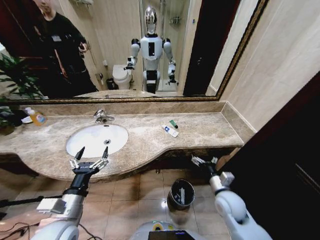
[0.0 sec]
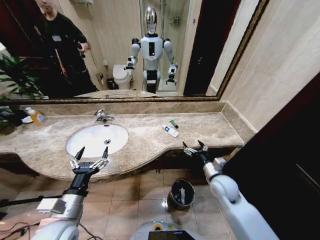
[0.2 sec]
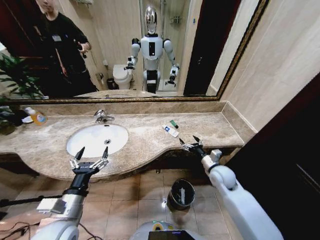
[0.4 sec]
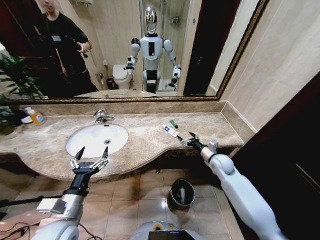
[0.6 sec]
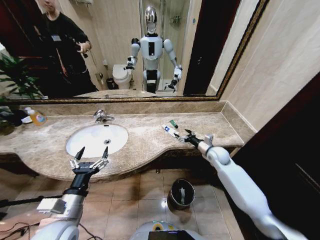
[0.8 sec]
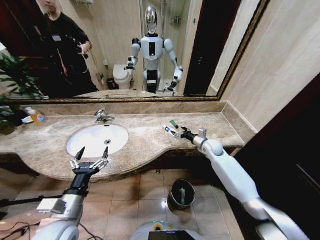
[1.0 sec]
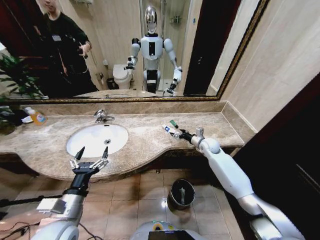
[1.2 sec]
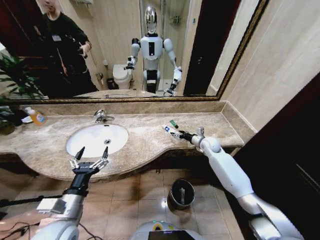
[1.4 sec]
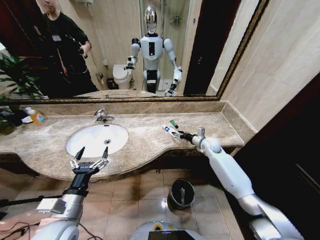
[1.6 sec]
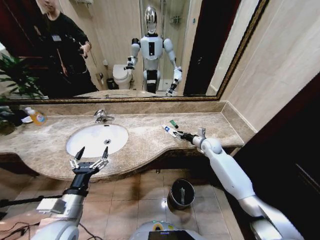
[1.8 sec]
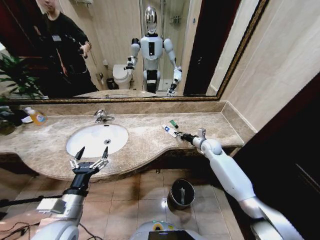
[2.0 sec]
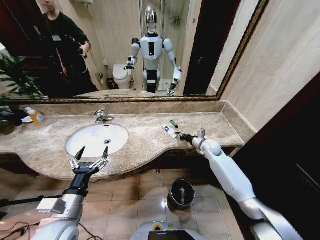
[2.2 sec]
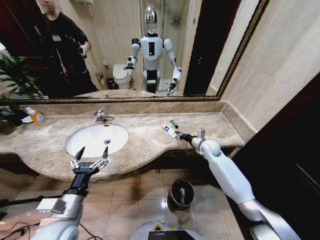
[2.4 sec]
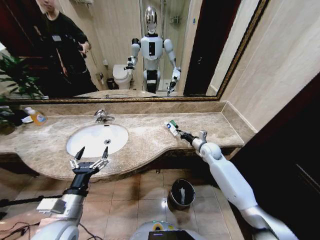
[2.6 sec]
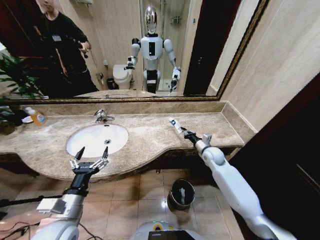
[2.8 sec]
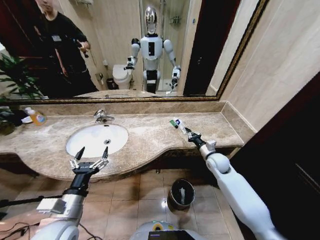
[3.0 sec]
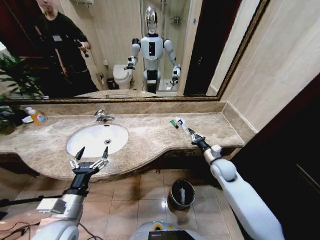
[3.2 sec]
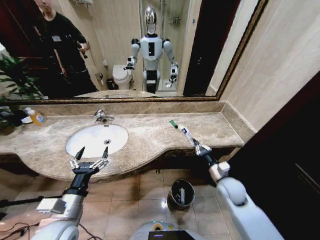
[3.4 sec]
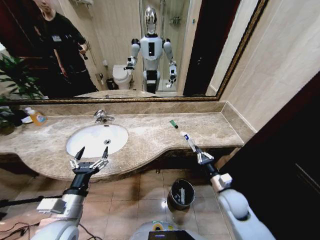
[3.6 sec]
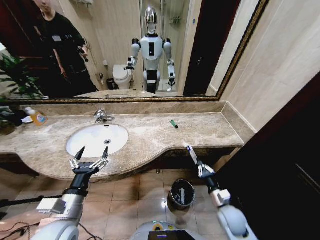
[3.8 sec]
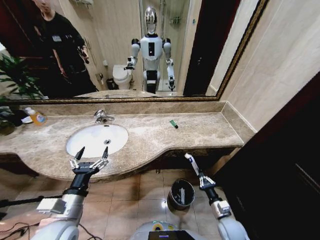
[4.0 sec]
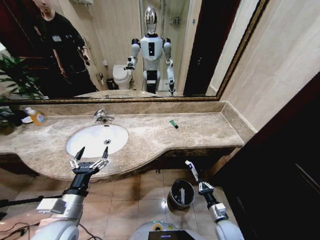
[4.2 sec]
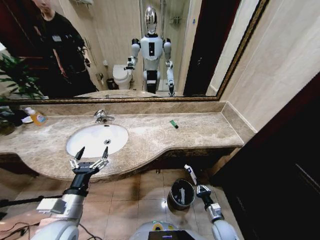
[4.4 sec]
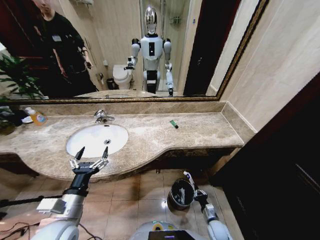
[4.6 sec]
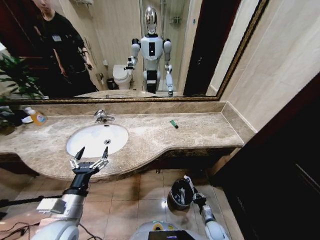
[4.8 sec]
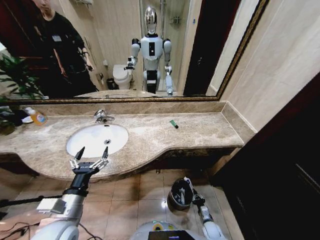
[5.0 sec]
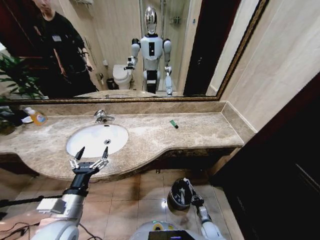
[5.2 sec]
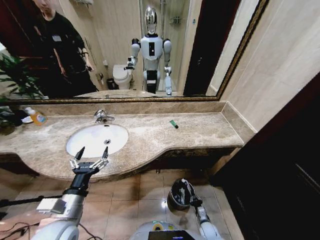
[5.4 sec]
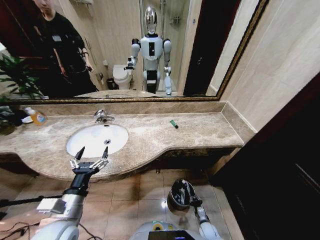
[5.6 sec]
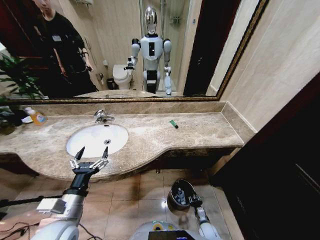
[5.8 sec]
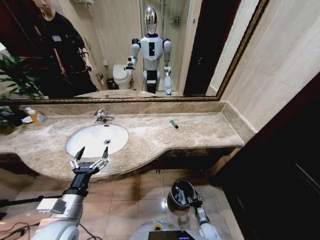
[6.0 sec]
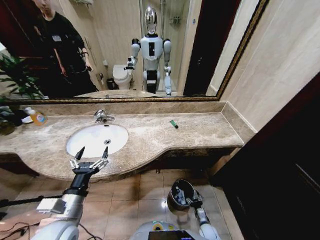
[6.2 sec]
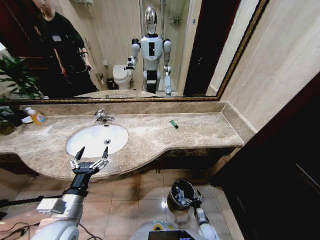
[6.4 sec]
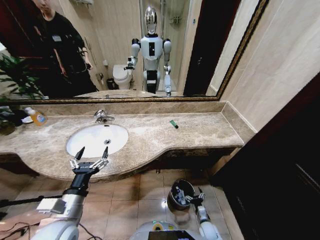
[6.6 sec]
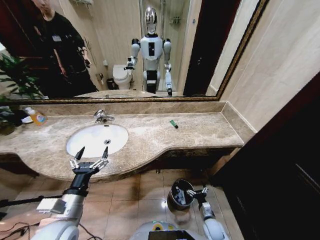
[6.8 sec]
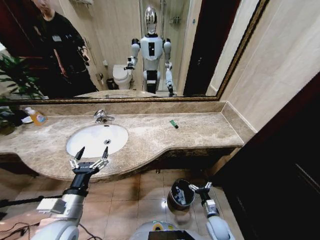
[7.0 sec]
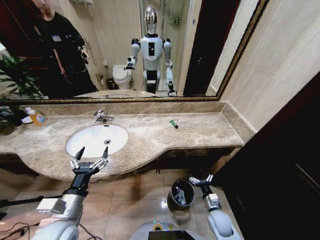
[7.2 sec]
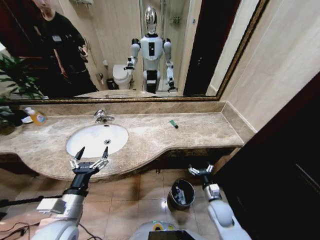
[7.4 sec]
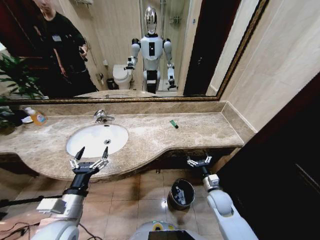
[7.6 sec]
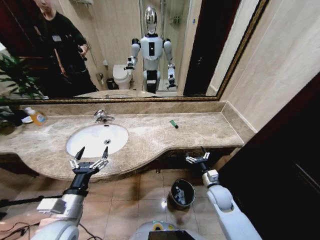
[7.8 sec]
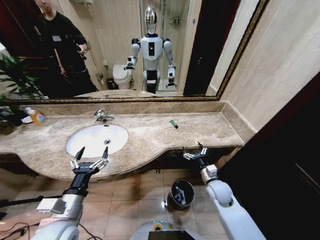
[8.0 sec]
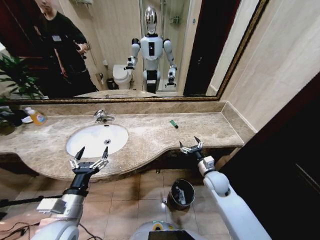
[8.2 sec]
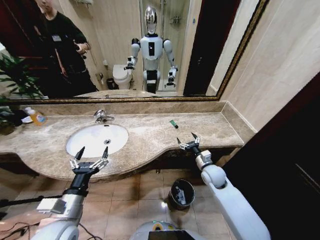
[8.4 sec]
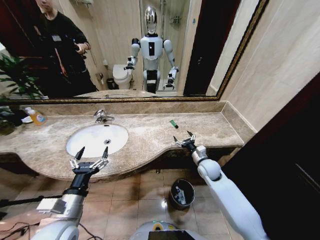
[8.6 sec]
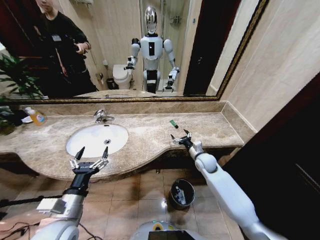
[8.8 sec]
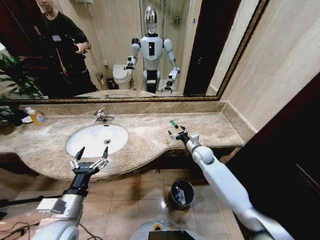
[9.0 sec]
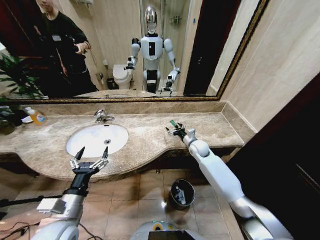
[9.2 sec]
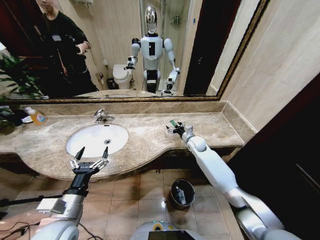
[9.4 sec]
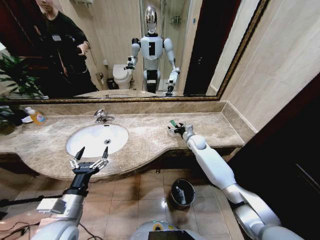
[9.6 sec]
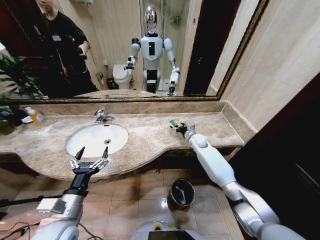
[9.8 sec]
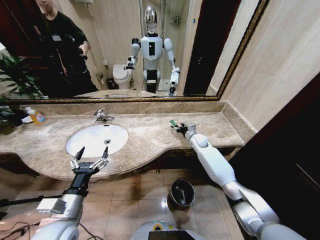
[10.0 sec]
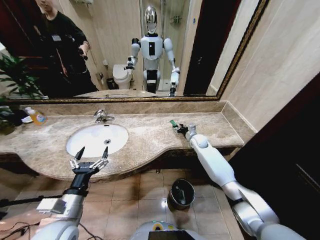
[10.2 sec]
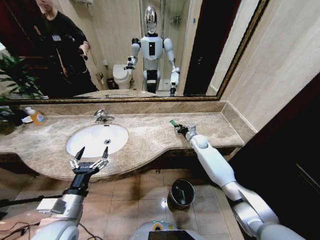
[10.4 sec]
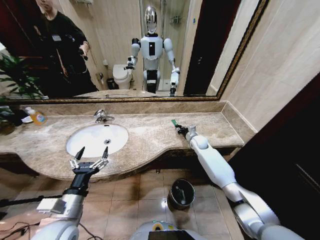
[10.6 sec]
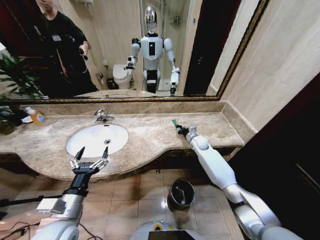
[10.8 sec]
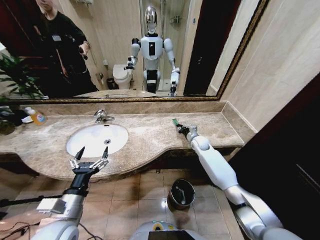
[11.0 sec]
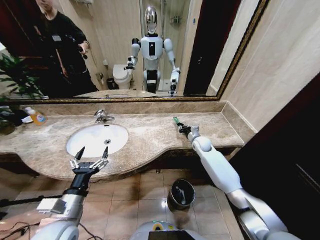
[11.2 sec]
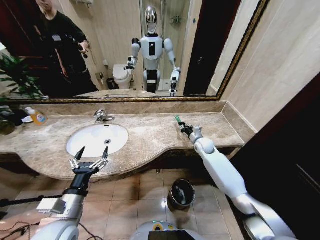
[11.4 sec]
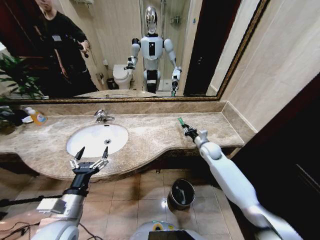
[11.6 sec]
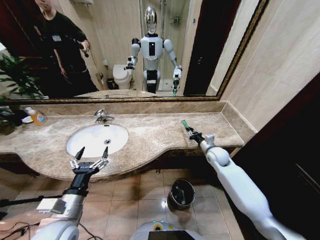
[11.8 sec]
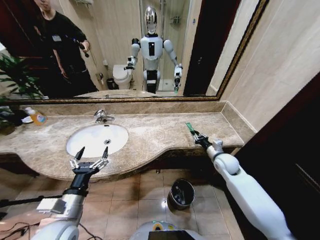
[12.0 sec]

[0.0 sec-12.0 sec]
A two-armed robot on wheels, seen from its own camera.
Task of the whole recording: Pick up the trash from the sink and place it in the trash bin.
0.0 sec to 1.6 sec: The right gripper heads forward, covering approximately 25 cm.
1.6 sec to 3.0 sec: The right gripper heads backward, covering approximately 10 cm, and closes.
3.0 sec to 4.4 sec: The right gripper goes approximately 35 cm backward and downward.
4.4 sec to 6.0 sec: The right gripper moves downward, roughly 10 cm, and opens.
6.0 sec to 7.6 sec: The right gripper is displaced upward by some 25 cm, and opens.
7.6 sec to 9.0 sec: The right gripper shifts roughly 20 cm forward and upward.
9.0 sec to 10.4 sec: The right gripper goes about 10 cm forward, and closes.
10.4 sec to 12.0 sec: The right gripper heads backward and to the right, covering roughly 20 cm.

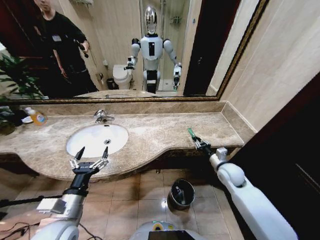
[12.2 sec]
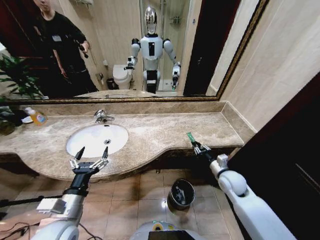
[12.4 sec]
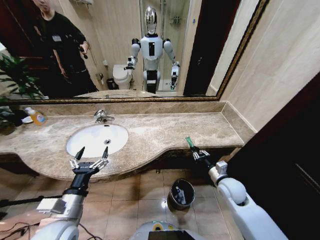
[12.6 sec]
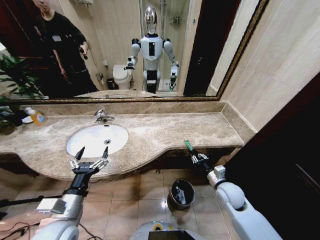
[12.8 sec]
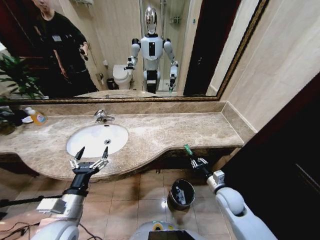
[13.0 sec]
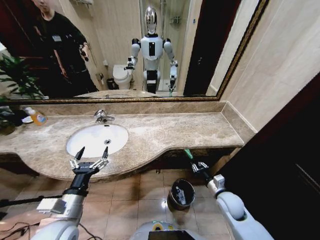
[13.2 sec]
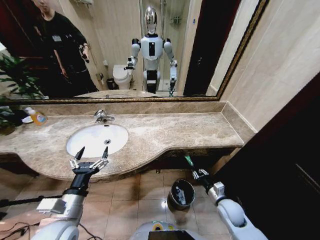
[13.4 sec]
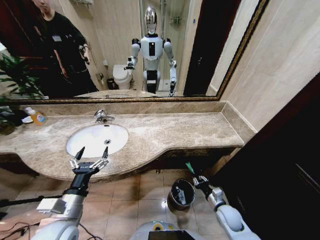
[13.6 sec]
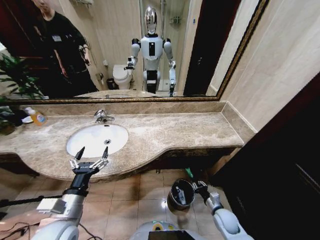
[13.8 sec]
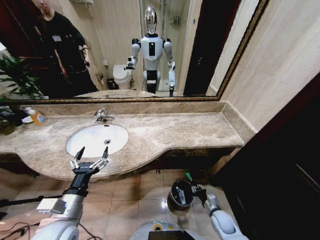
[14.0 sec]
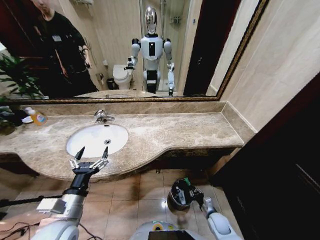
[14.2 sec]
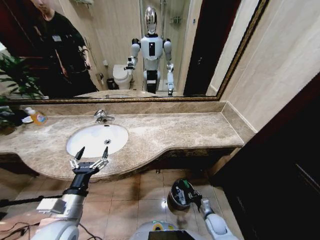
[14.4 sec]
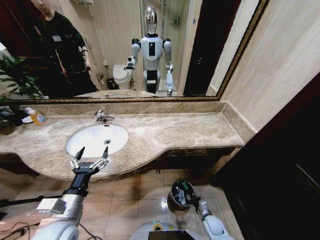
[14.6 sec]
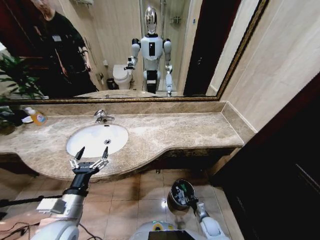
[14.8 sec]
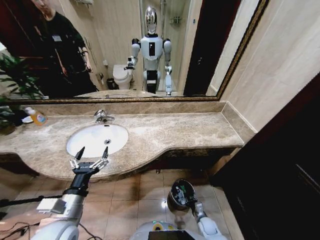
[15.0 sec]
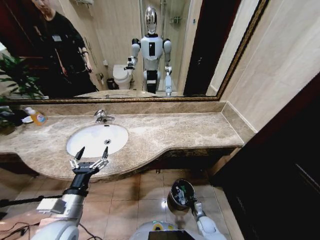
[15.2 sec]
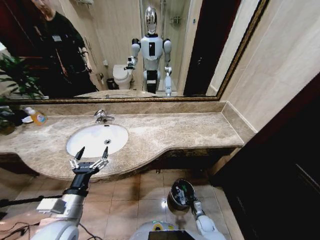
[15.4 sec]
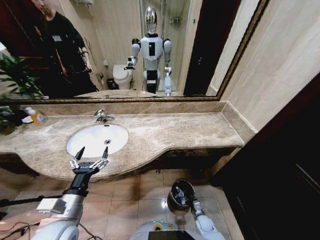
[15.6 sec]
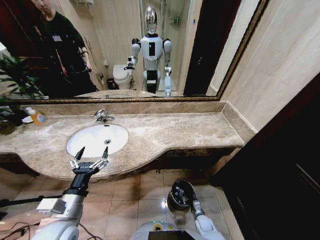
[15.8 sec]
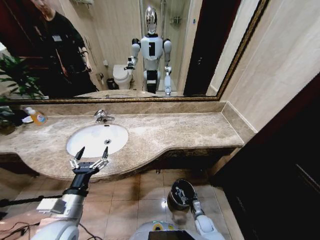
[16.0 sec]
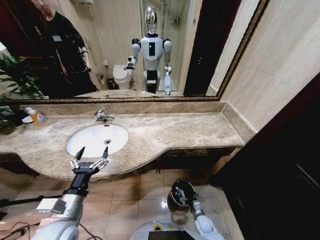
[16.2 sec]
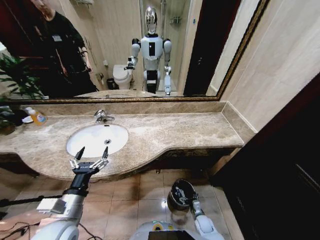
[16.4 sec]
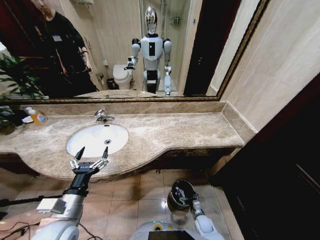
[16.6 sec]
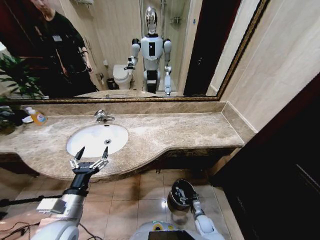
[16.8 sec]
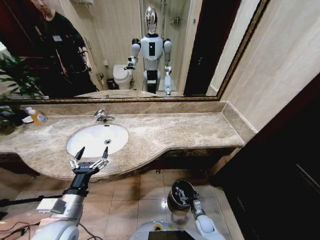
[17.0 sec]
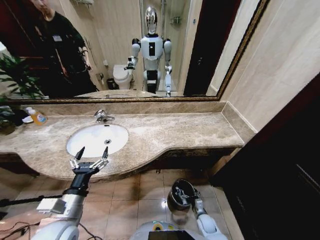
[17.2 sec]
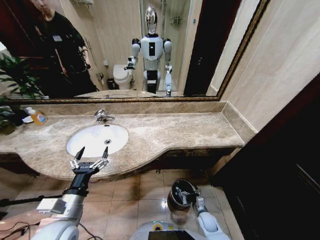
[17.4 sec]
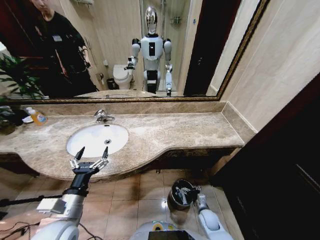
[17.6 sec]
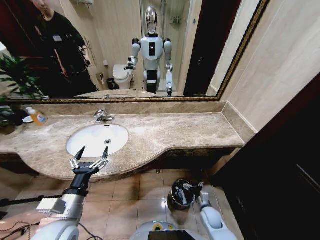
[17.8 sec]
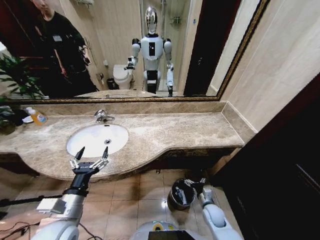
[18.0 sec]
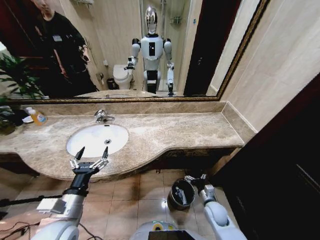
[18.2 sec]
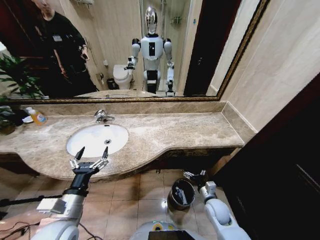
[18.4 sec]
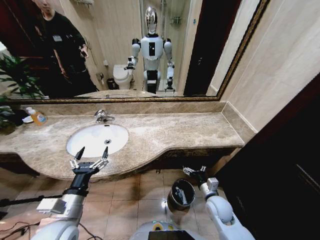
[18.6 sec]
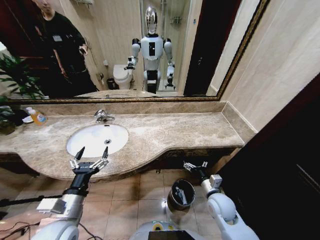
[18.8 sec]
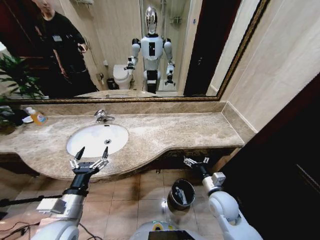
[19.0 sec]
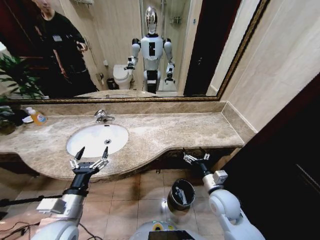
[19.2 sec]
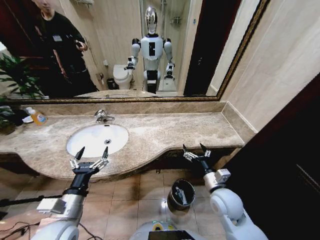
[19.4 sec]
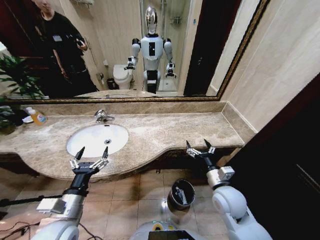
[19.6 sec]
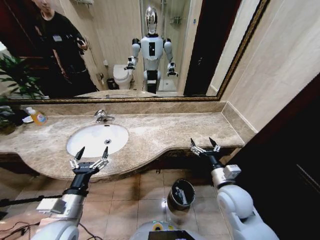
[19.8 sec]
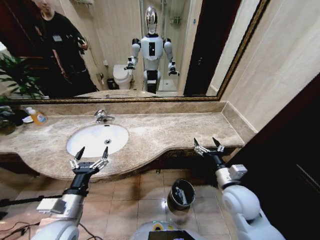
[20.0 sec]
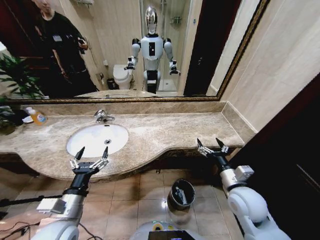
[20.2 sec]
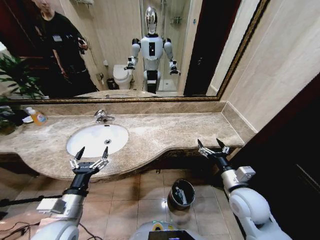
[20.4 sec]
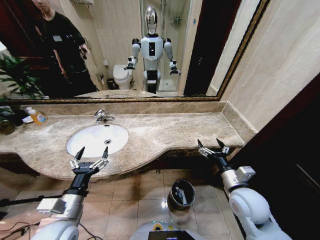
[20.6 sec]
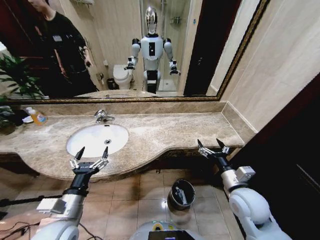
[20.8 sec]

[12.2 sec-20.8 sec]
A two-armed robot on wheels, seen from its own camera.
Task of the whole recording: Pick up the trash from the sink and place it in the trash bin.
12.2 sec to 13.6 sec: The right gripper is displaced downward and backward by some 20 cm.
13.6 sec to 15.0 sec: The right gripper is displaced downward by some 20 cm.
15.0 sec to 16.6 sec: The right gripper opens up.
16.6 sec to 18.0 sec: The right gripper goes about 10 cm upward.
18.0 sec to 19.4 sec: The right gripper goes about 20 cm upward.
19.4 sec to 20.8 sec: The right gripper changes place by roughly 5 cm.
